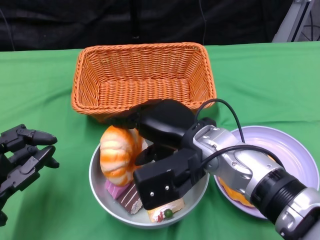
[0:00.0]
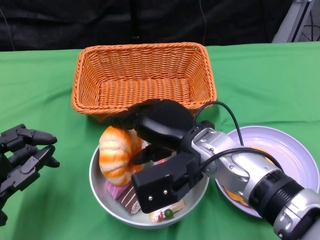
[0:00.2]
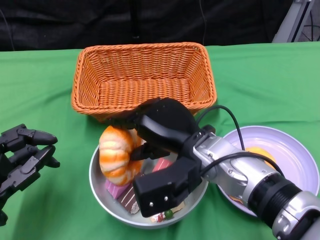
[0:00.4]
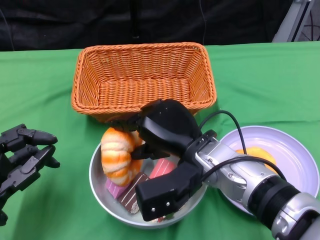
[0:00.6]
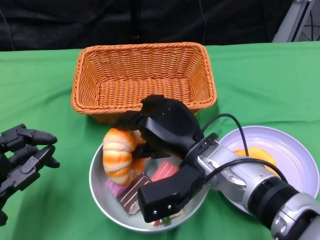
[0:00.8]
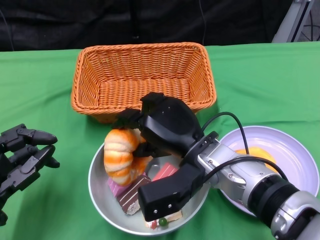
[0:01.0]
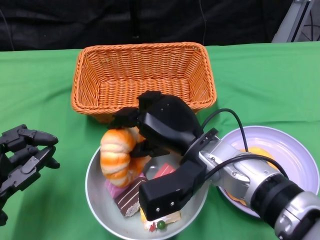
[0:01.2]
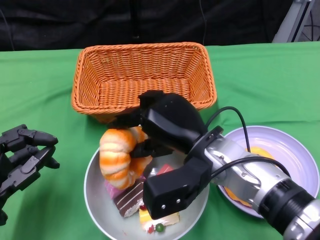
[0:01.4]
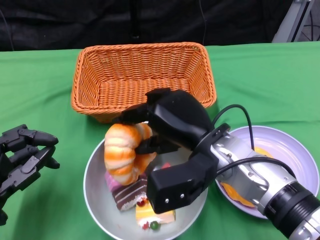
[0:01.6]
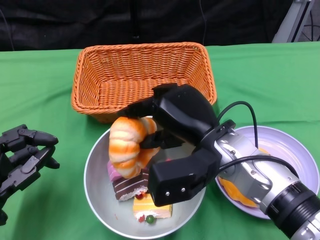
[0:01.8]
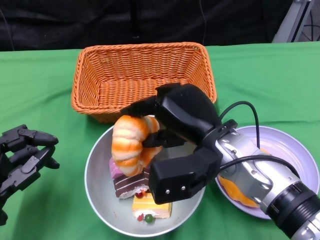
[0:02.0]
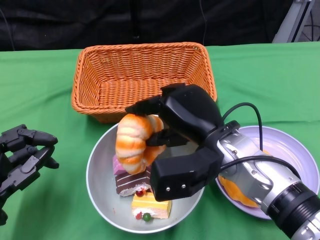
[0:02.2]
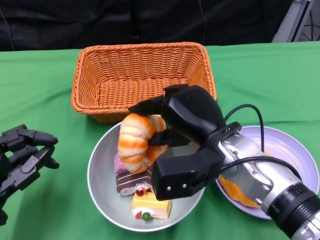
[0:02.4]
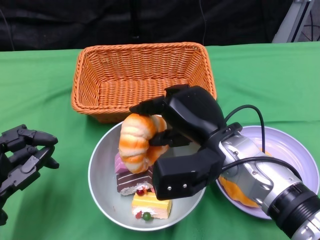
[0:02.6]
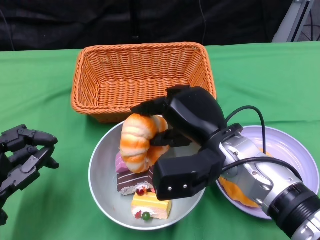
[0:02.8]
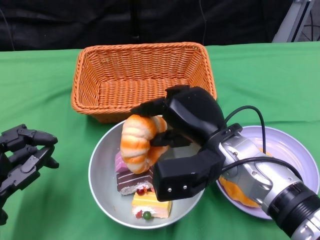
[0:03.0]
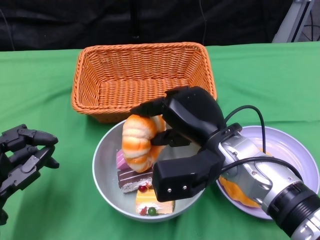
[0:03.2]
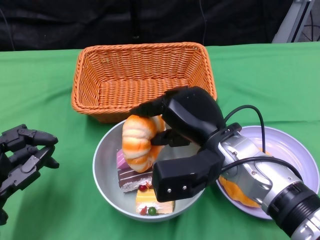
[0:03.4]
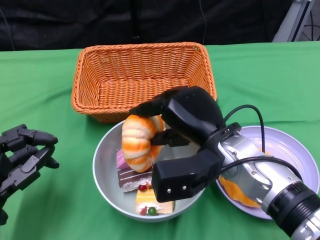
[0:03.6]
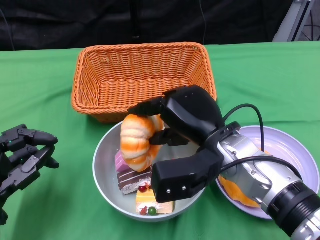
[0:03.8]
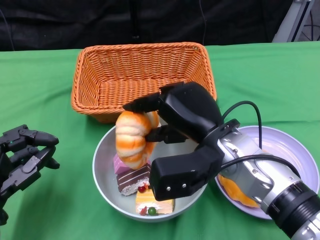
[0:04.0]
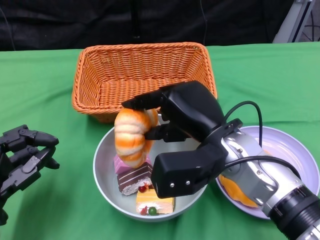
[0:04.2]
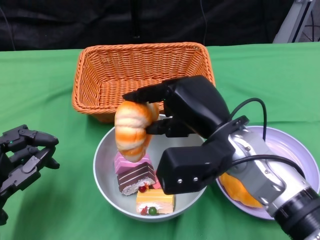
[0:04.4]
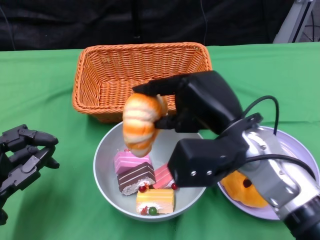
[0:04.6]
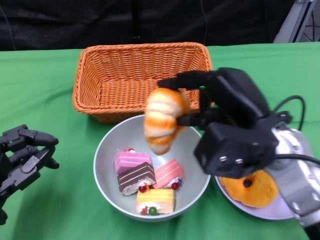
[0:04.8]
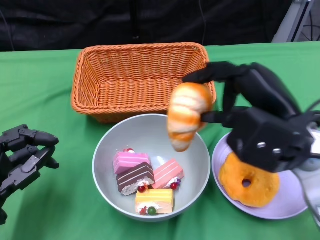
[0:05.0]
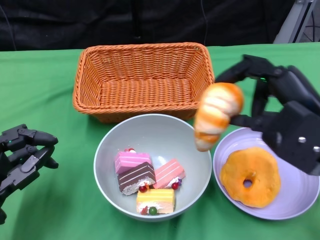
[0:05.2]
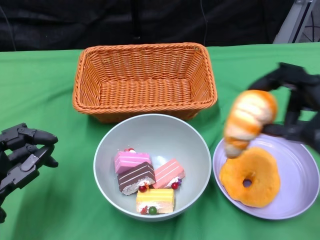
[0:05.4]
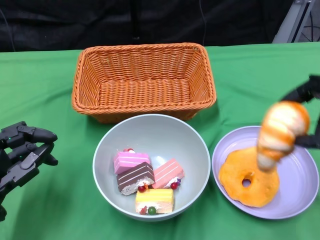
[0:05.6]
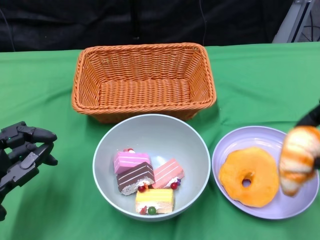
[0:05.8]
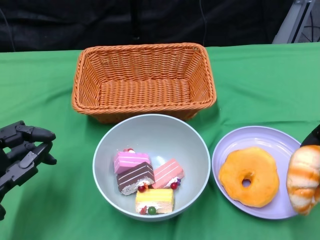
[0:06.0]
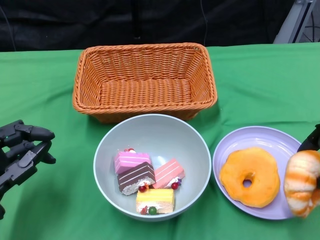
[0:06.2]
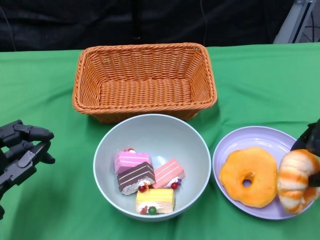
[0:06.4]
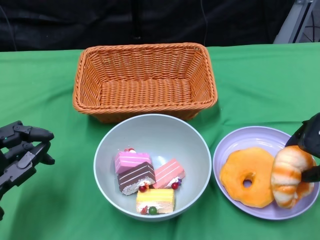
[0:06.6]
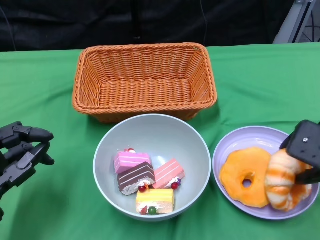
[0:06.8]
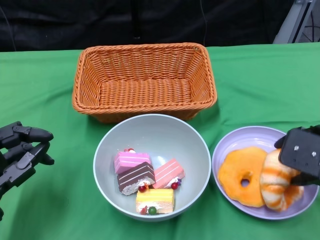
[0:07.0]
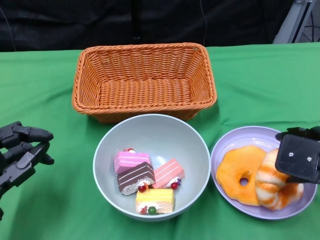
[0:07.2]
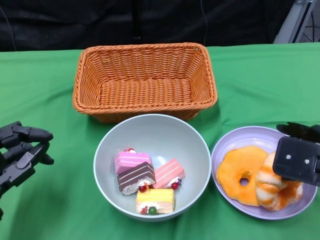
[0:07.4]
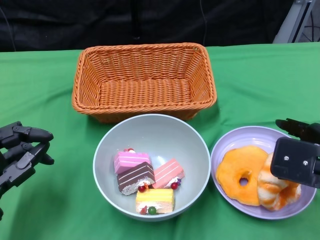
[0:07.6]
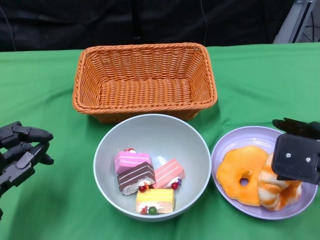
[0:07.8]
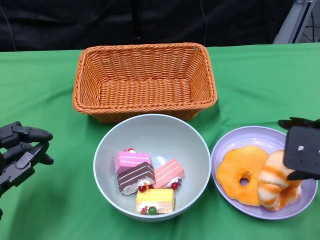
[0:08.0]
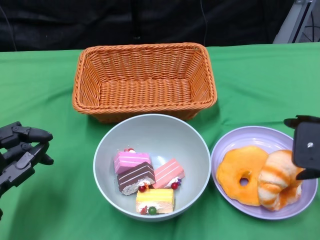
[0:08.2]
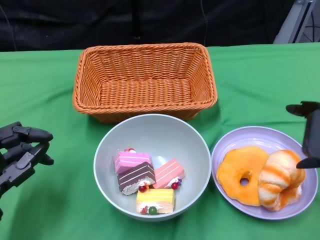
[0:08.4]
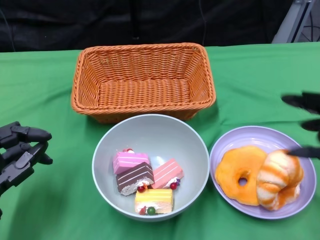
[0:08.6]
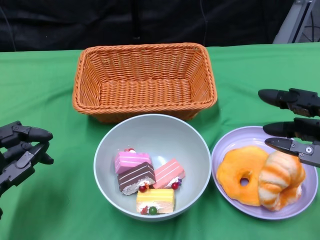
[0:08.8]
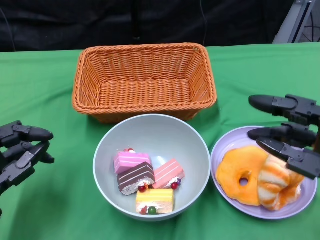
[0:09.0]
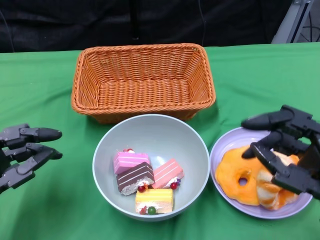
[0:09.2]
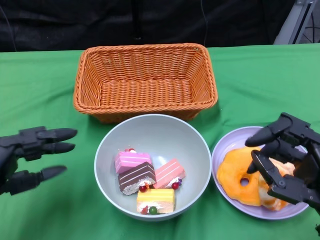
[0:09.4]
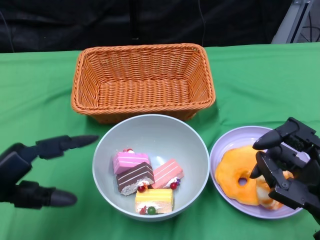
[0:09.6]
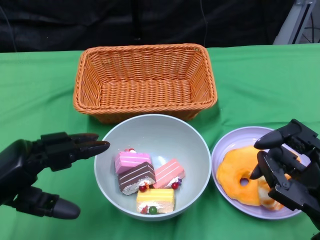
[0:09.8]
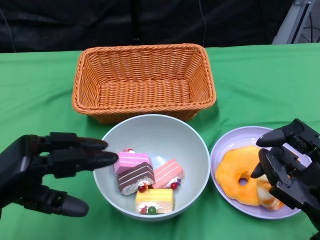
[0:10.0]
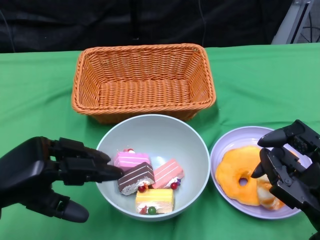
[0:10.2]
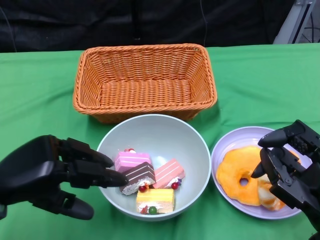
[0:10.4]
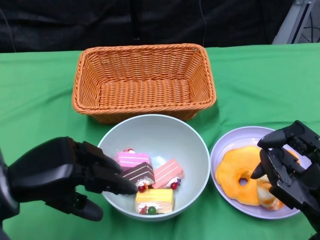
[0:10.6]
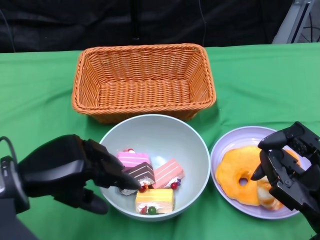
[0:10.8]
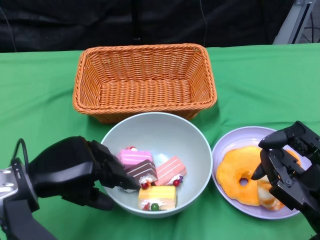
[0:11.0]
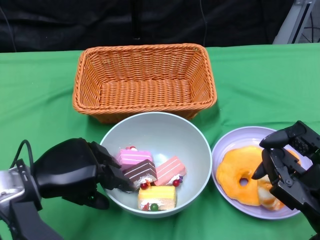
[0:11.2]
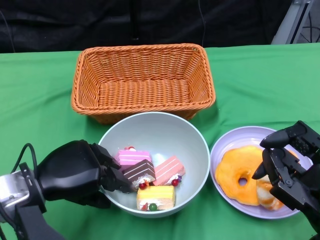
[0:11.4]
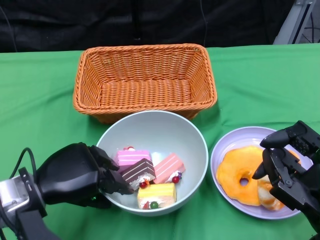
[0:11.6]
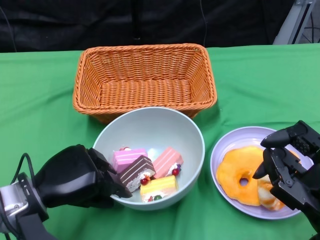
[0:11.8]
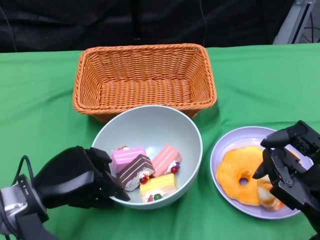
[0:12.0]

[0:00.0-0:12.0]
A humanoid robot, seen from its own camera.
Step, 0:00.0 to 0:08.2: Pick up the bread with the right gripper and place it on the plate.
0:01.6 to 0:03.0: The hands make only small movements.
0:04.4 to 0:06.0: The right hand travels to the right by some 20 cm.
0:06.0 to 0:07.6: The right hand heads to the left, covering about 5 cm.
0:07.6 to 0:09.0: The right hand travels backward by some 5 cm.
0:09.0 to 0:10.4: The right hand changes place by roughly 5 cm. The left hand shifts roughly 5 cm upward.
0:10.4 to 0:12.0: The left hand heads downward, covering roughly 5 cm.

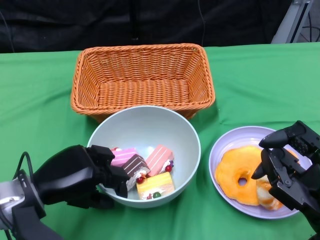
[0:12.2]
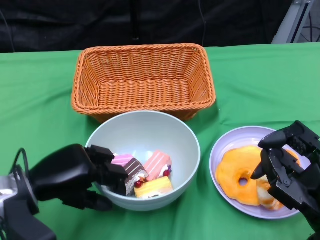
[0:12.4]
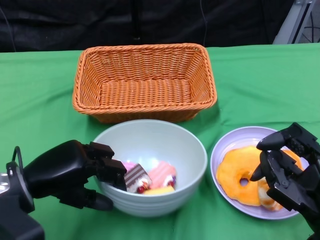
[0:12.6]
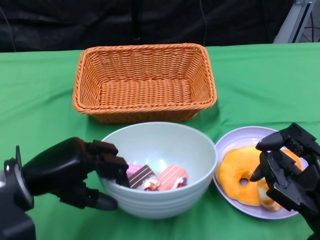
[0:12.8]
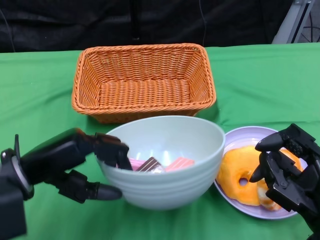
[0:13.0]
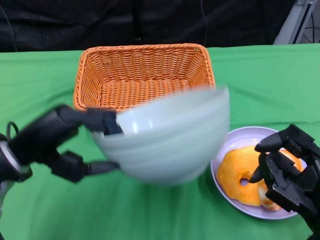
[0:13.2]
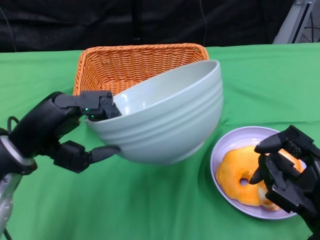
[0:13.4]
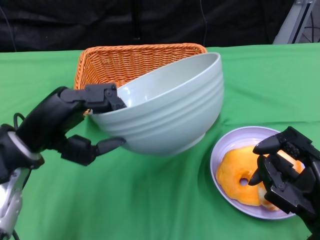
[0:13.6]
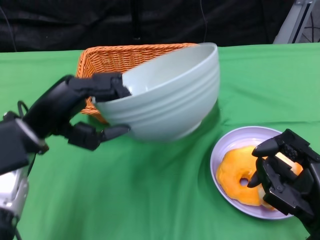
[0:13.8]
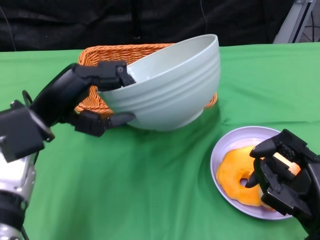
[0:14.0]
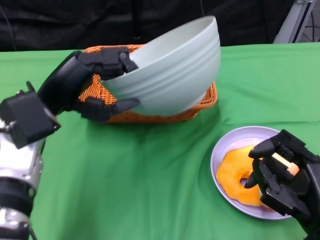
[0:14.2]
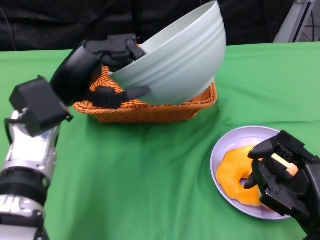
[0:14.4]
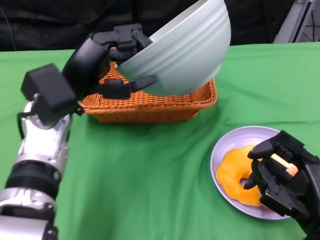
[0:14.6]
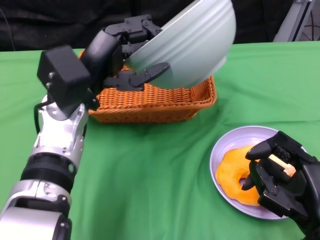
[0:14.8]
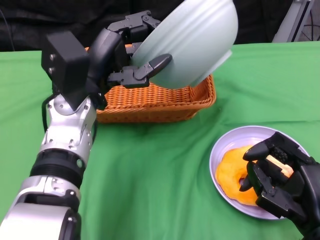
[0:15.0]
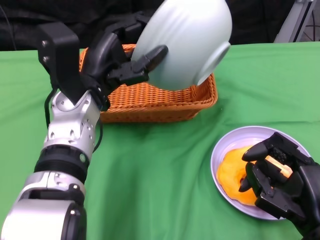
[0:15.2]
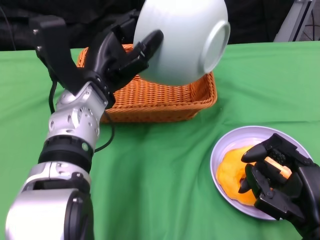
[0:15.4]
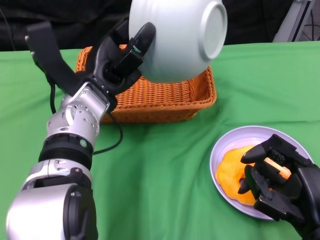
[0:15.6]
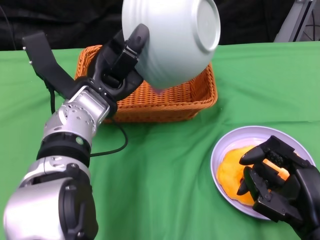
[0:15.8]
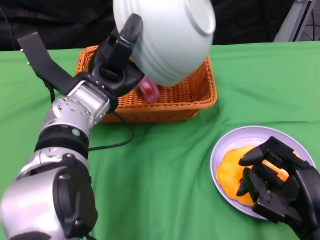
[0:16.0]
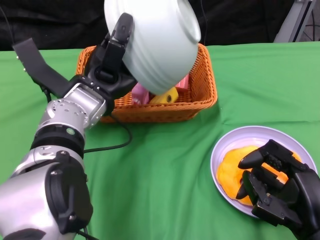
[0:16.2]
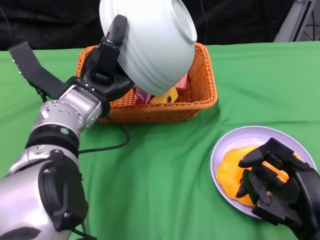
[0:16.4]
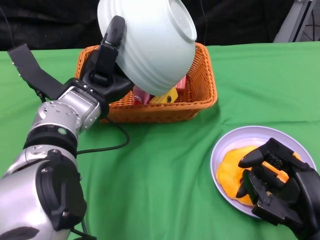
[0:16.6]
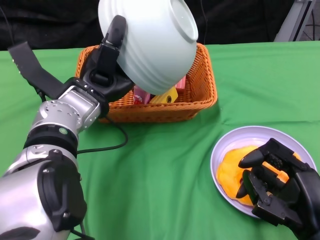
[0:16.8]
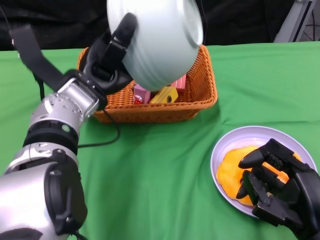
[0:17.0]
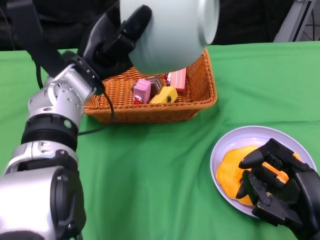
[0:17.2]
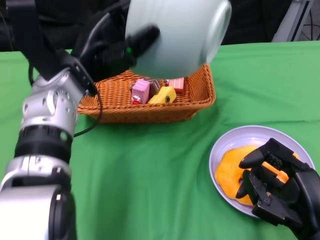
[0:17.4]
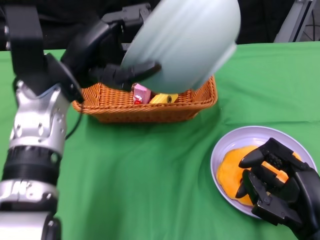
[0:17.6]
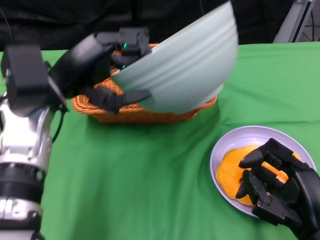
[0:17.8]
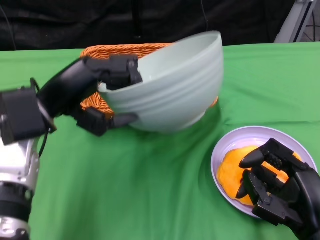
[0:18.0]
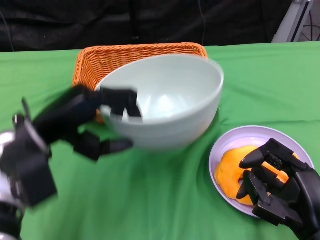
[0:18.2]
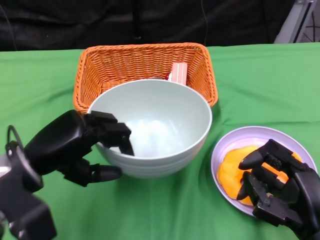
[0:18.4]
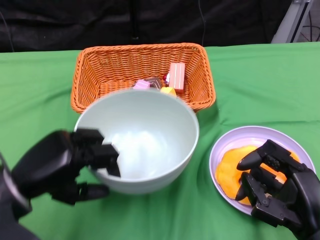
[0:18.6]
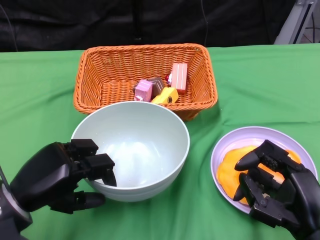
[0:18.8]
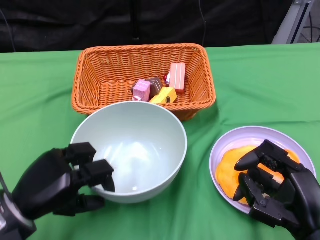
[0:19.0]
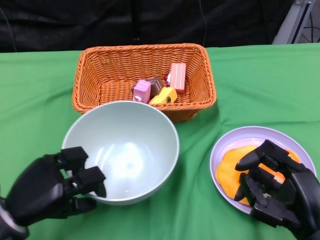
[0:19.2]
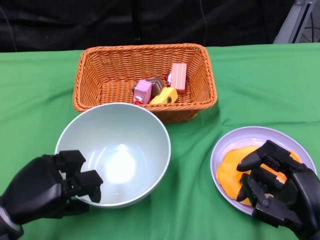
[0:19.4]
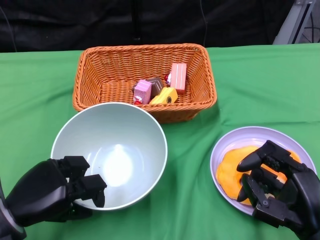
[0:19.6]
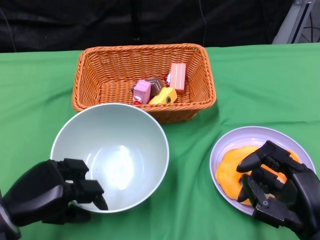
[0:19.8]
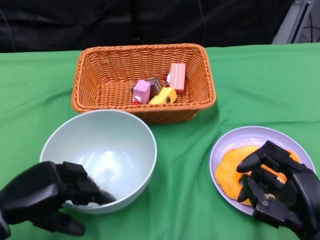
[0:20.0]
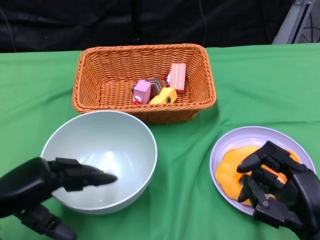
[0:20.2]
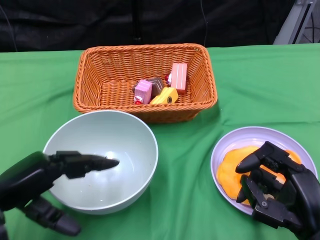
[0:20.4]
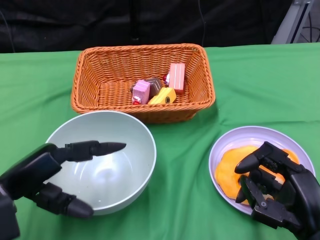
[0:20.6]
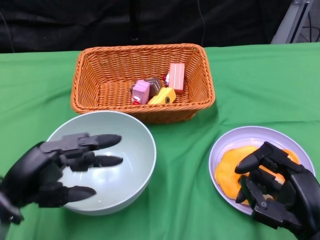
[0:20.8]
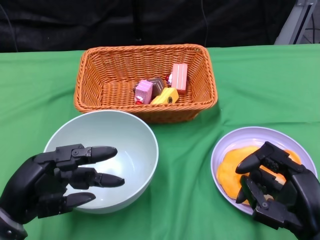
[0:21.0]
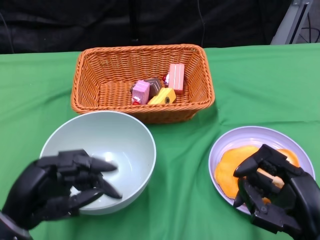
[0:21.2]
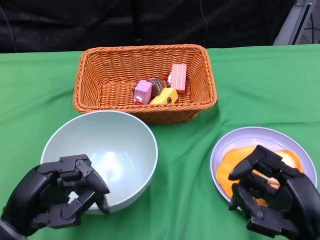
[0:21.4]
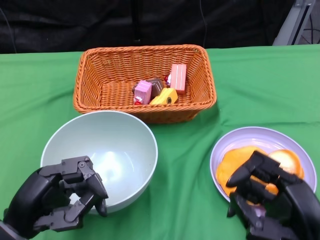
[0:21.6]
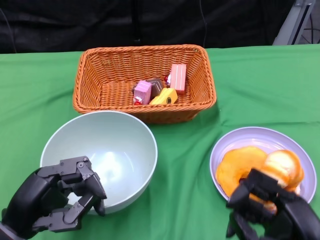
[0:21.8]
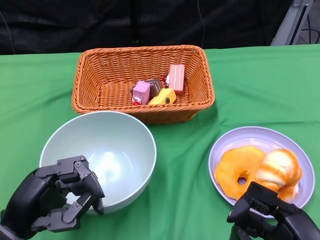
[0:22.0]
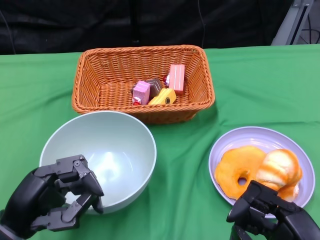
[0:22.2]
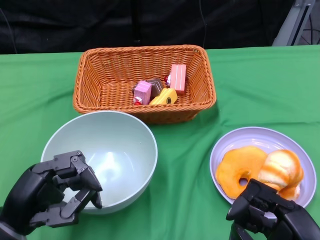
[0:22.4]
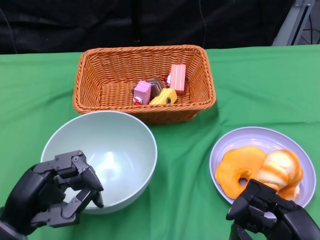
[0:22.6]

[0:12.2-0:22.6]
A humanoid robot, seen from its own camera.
Step, 0:12.6 to 0:17.0: Pour the cake into the basket with the left gripper.
Step, 0:17.2 to 0:20.6: Place the bowl on the table with the left gripper.
0:12.2 to 0:13.6: The left hand shifts roughly 10 cm upward.
0:13.6 to 0:15.2: The left hand goes approximately 10 cm to the right and forward.
0:16.6 to 0:18.2: The left hand heads to the left and backward, covering some 10 cm.
0:18.2 to 0:19.6: The left hand heads downward and backward, covering approximately 15 cm.
0:21.2 to 0:22.6: The hands make only small movements.
